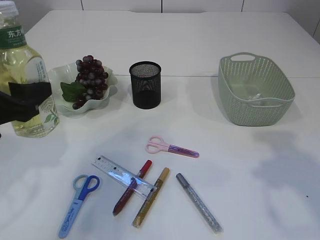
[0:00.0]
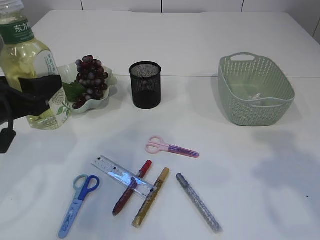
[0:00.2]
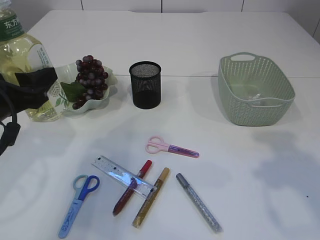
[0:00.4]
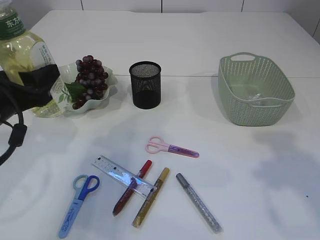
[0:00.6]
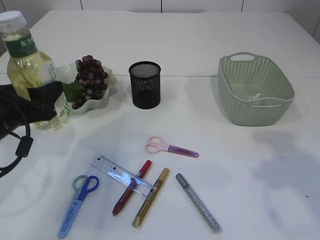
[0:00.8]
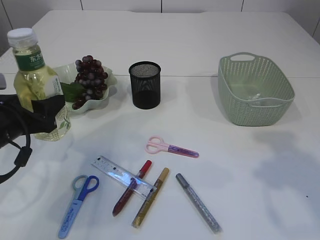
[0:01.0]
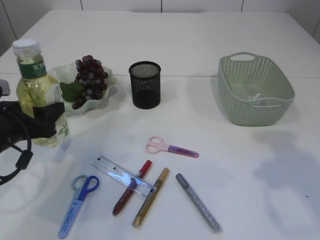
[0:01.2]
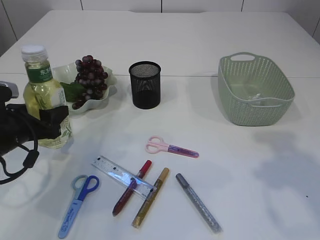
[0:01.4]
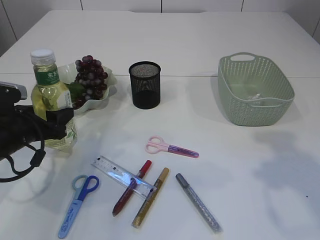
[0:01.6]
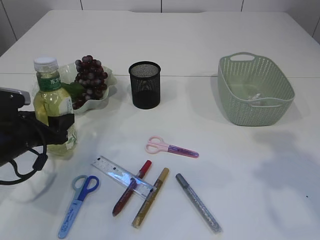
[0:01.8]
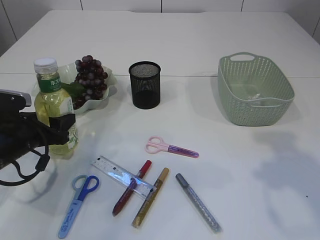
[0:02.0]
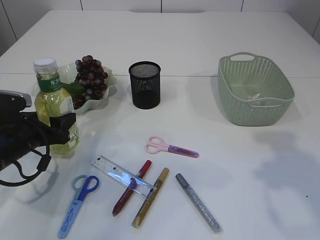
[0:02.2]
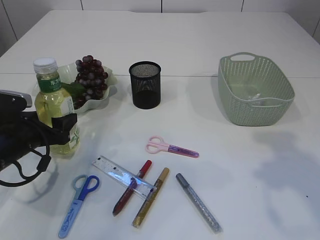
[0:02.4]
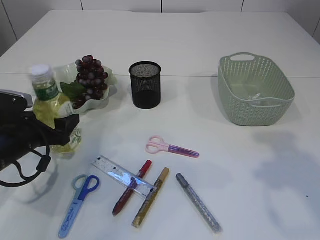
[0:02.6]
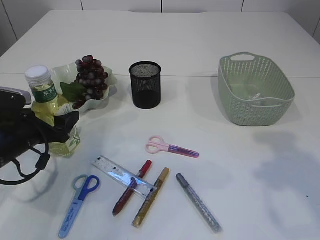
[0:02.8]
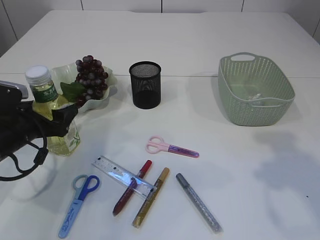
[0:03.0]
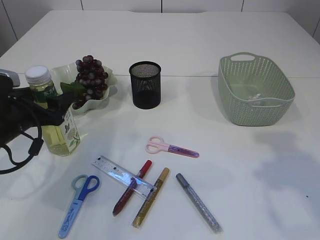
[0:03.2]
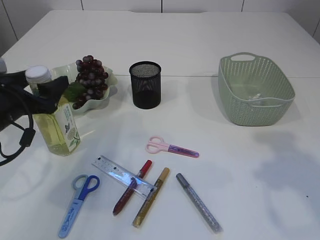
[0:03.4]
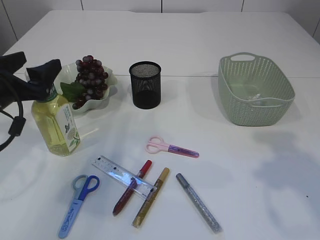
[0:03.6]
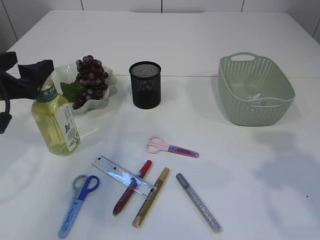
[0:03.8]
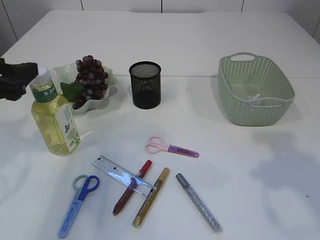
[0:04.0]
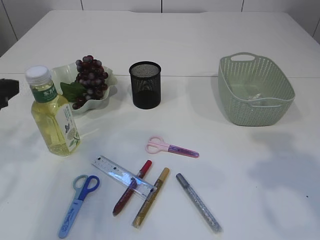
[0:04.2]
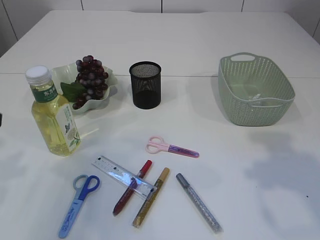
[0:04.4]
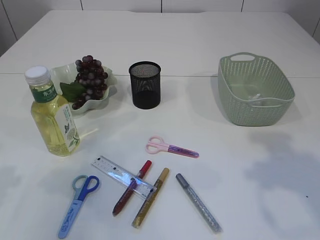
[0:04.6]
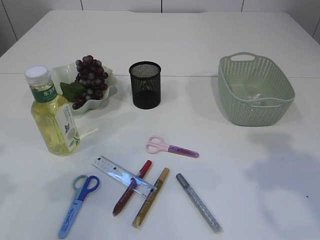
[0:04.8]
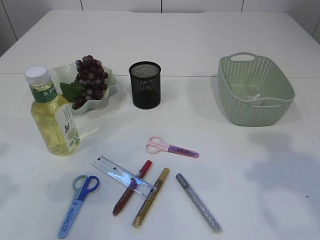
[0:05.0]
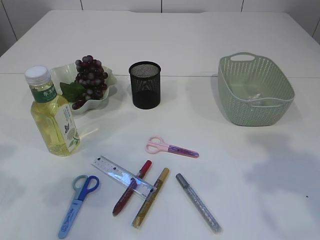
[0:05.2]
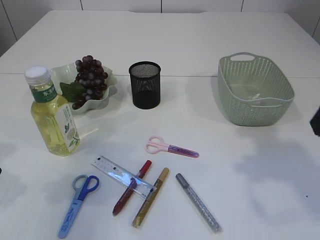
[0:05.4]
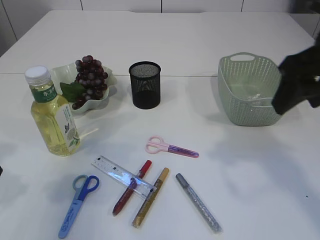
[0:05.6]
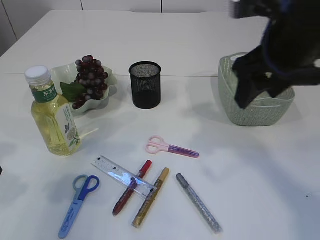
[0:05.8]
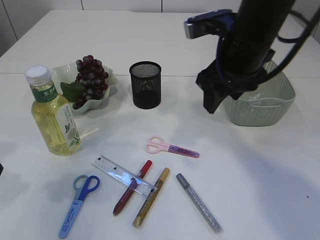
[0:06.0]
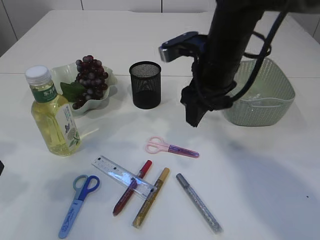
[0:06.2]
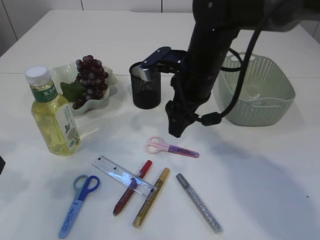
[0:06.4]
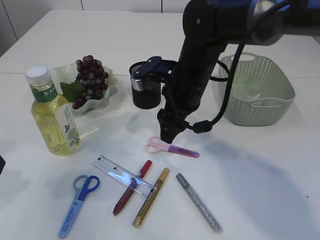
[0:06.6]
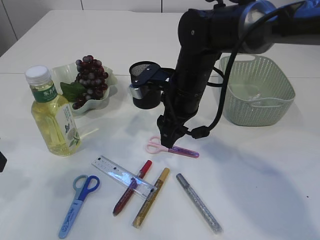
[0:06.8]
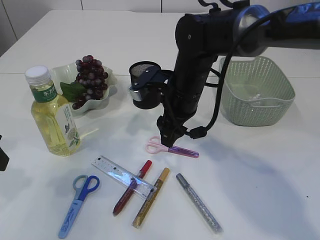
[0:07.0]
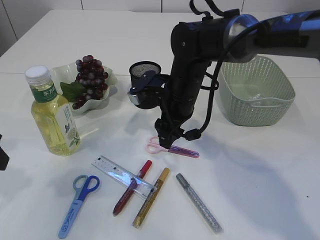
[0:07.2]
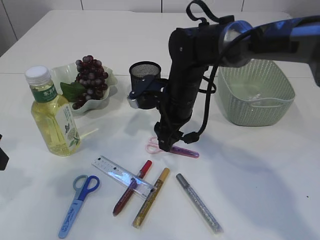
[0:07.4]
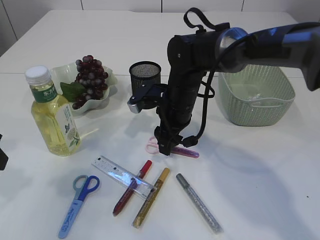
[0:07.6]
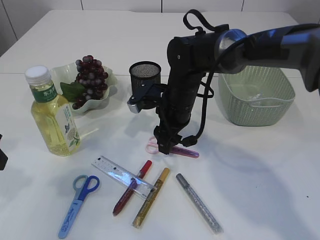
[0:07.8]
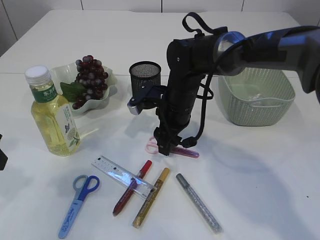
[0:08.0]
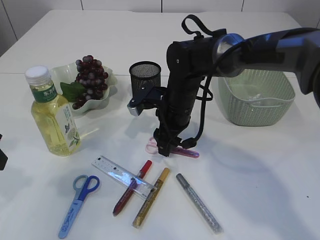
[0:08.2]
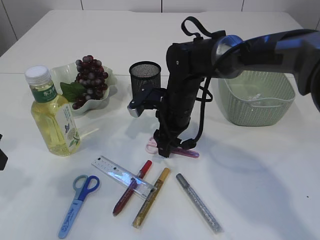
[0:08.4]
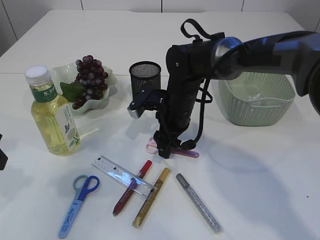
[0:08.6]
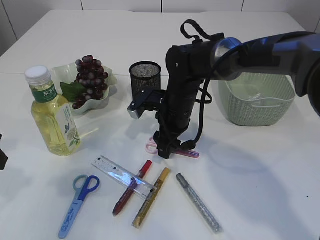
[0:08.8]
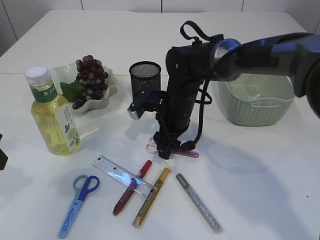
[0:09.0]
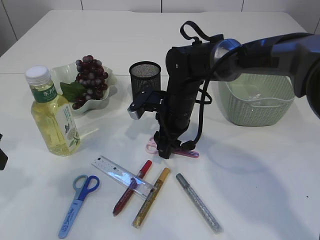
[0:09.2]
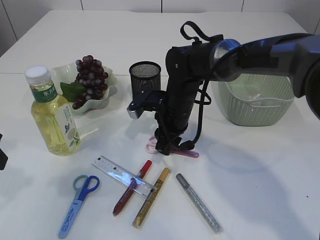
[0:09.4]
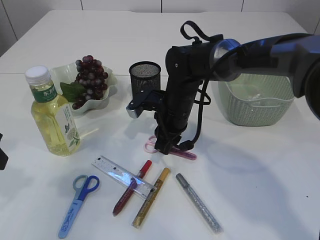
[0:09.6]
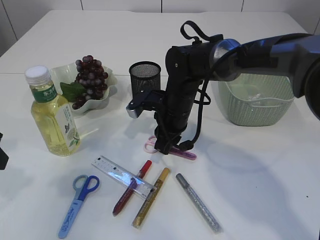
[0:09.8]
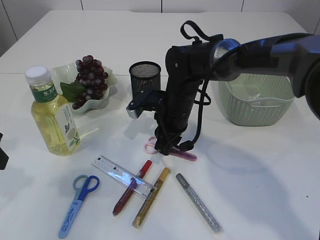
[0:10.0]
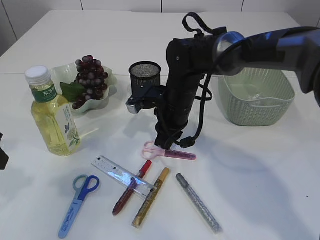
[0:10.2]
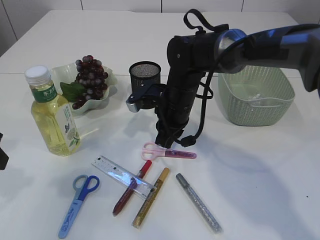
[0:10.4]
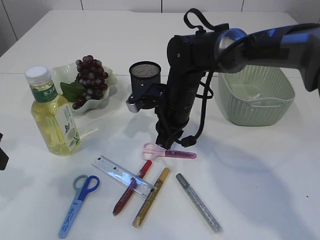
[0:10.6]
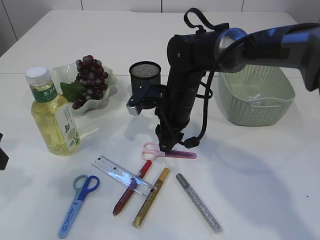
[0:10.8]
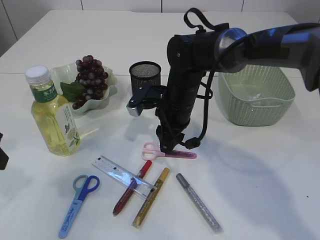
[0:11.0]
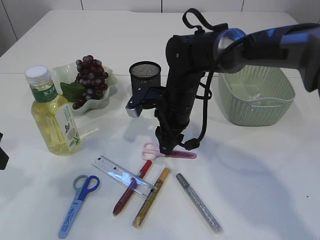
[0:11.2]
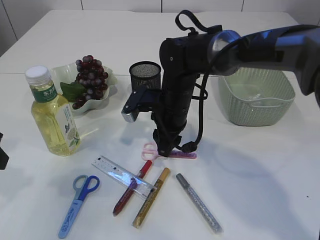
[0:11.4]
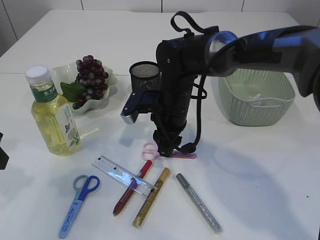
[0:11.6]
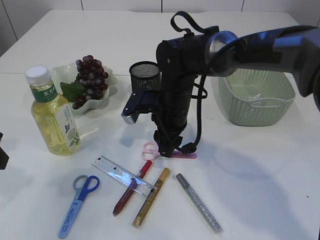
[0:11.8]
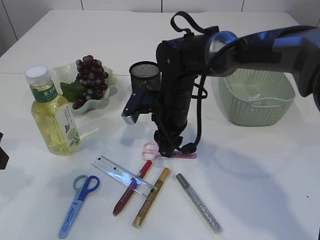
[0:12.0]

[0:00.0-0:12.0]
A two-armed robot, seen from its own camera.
Step, 0:00.0 to 0:03.8: Place the bottle.
0:00.0 to 0:01.6: The left gripper travels downward and forward by about 15 cm.
0:01.6 to 0:03.0: The left gripper opens its fingers.
0:03.0 to 0:04.4: The left gripper travels upward and backward by roughly 15 cm.
0:04.4 to 0:06.0: The right gripper heads forward and to the left, covering approximately 20 cm.
0:06.0 to 0:07.6: The right gripper travels downward, to the left and forward by approximately 20 cm.
0:07.6 to 0:09.0: There are only small adjustments of the grippers.
0:09.0 to 0:10.4: The right gripper closes its fingers.
0:10.4 to 0:12.0: The right gripper opens.

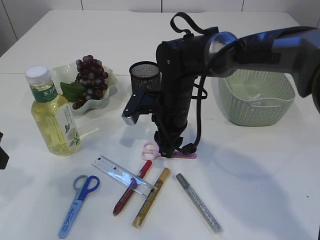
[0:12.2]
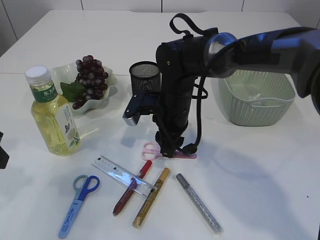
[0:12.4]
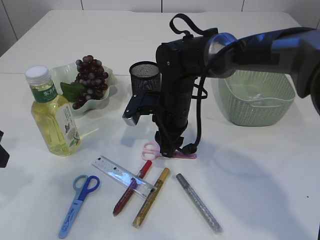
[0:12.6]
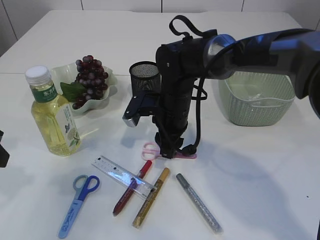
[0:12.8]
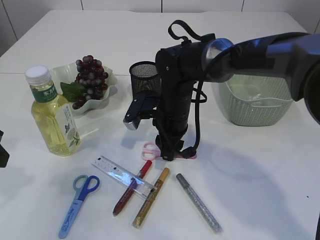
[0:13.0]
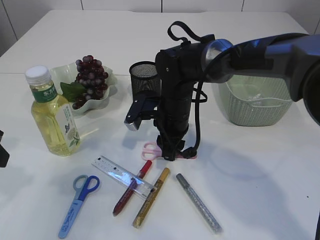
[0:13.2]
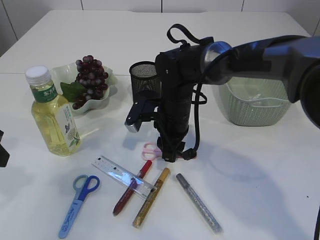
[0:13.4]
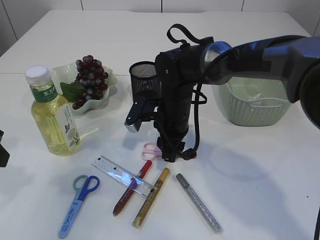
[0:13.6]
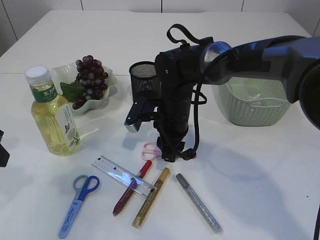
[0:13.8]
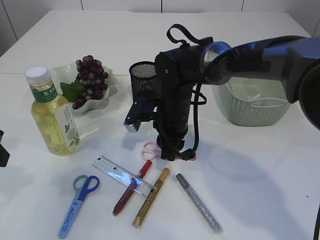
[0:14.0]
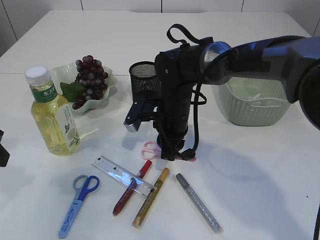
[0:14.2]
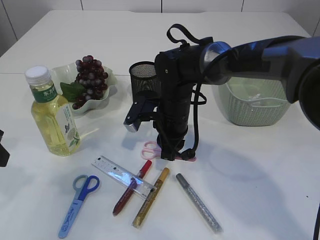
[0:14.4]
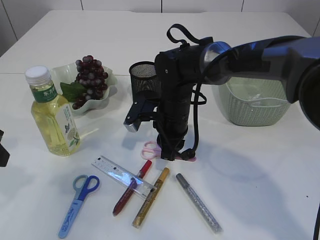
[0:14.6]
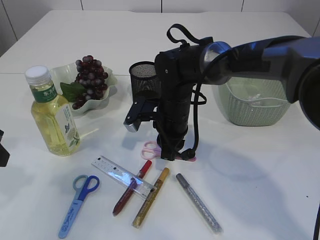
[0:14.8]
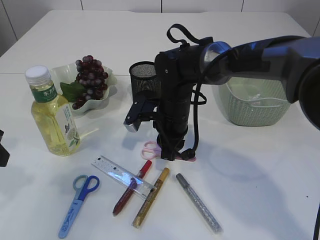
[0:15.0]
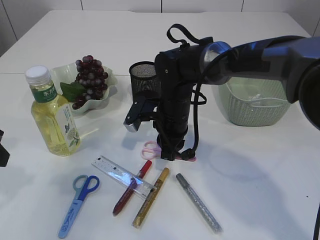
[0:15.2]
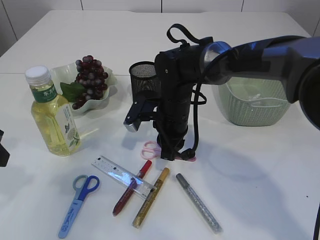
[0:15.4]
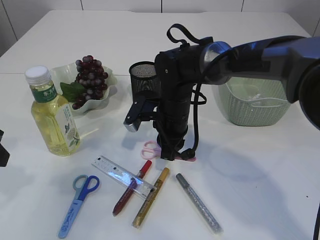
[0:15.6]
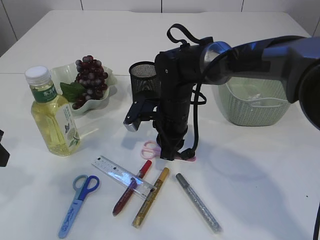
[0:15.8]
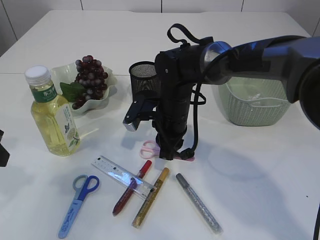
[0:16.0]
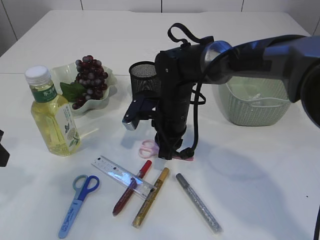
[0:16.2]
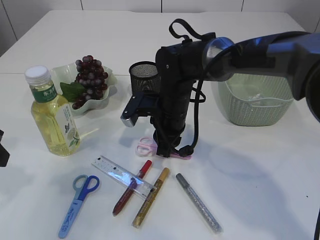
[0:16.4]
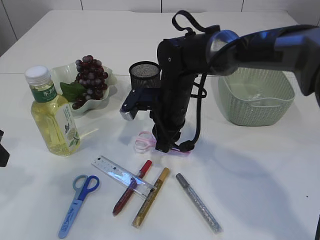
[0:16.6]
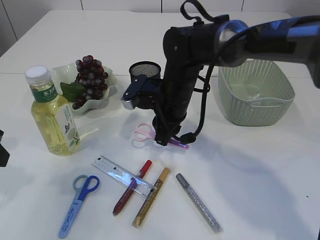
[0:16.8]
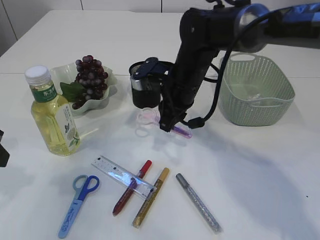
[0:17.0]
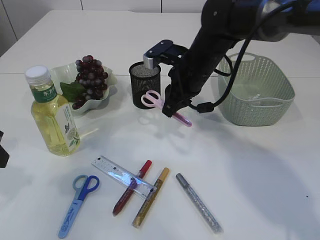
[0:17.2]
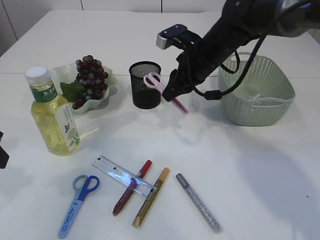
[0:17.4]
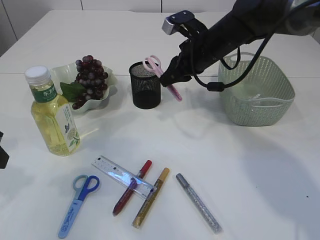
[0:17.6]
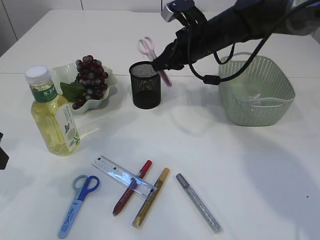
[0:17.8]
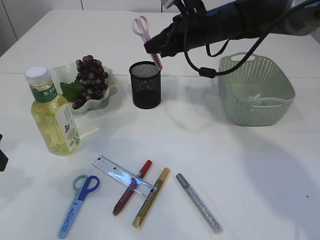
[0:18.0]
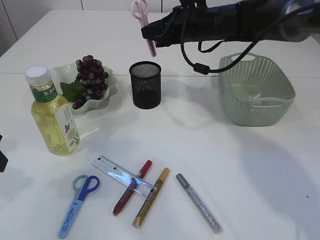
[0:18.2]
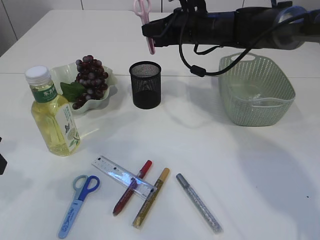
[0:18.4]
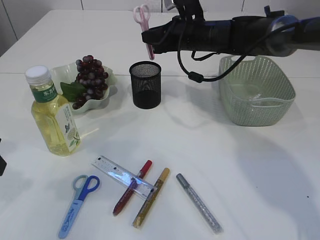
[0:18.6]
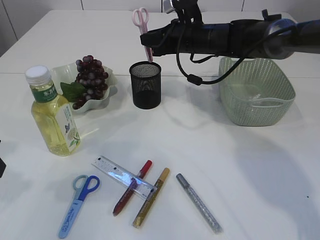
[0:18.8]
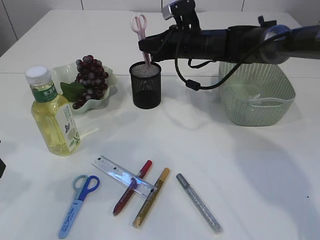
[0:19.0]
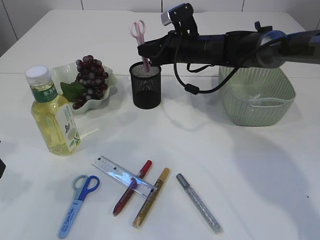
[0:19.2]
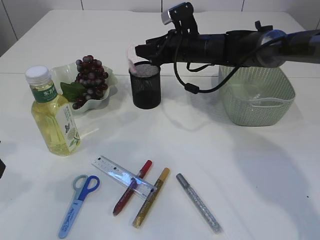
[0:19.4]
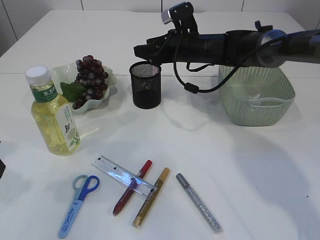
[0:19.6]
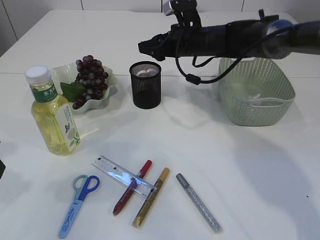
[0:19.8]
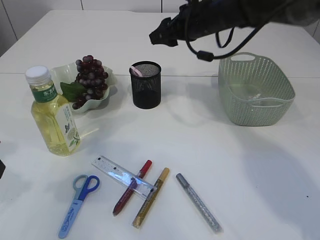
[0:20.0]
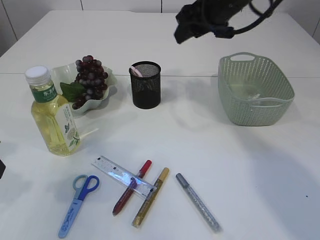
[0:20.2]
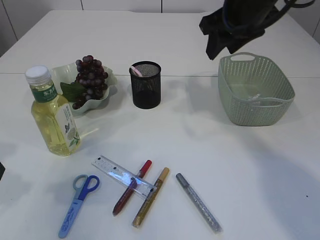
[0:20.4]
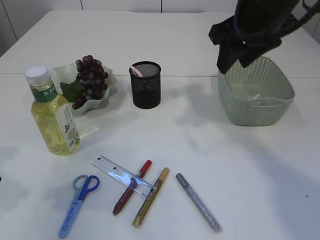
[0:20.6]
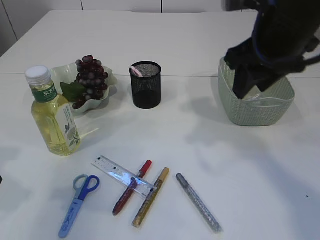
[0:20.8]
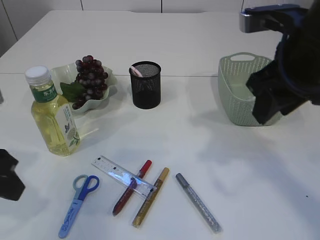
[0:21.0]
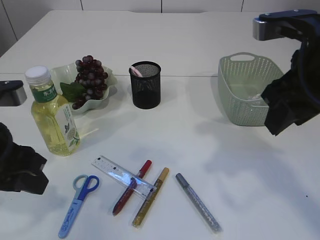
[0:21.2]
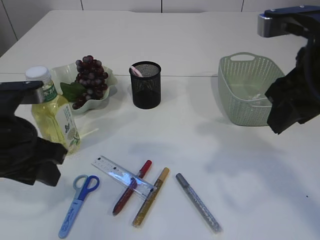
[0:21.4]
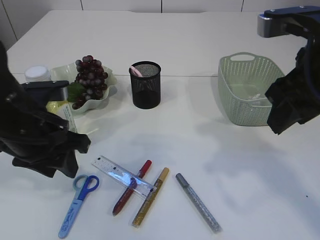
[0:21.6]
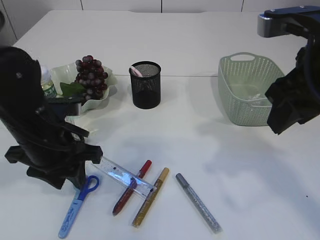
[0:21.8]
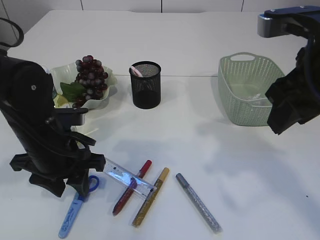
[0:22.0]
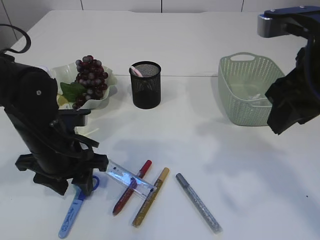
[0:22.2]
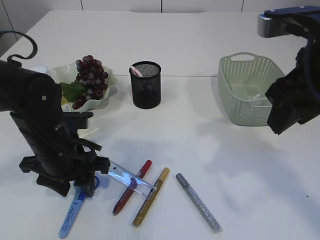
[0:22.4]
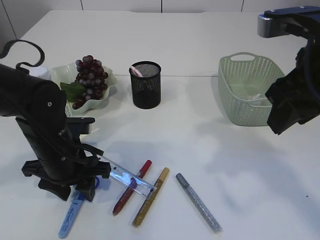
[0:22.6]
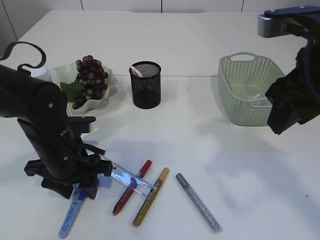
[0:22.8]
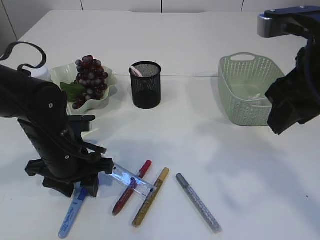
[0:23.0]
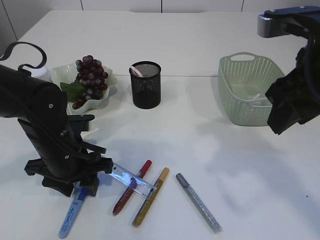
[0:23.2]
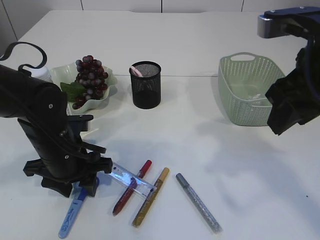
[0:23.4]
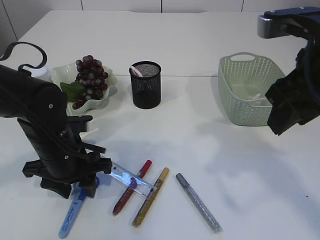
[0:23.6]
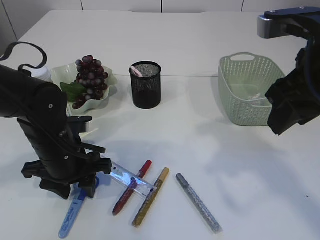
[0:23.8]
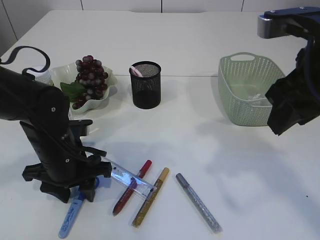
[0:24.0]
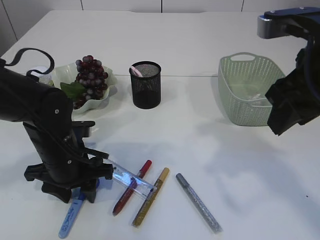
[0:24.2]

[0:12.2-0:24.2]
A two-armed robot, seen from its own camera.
Step, 0:12.2 to 0:17.2: pick up the pink scissors.
Step, 0:17.4 to 0:19.8: Place the pink scissors into the pen holder.
0:12.2 to 0:13.8: There are only small adjustments of the grippers.
0:13.8 to 0:15.2: Neither gripper changes place.
0:15.2 to 0:16.6: The grippers stay close to where they were, moving slightly.
0:16.6 to 0:18.2: The right gripper shifts some 15 cm upward, forward and to the right.
0:18.2 to 0:19.8: The right gripper opens up.
0:19.8 to 0:21.2: The right gripper heads backward and upward, covering roughly 25 cm. Meanwhile the left gripper heads to the right, covering some 5 cm.
0:21.2 to 0:22.6: The left gripper moves downward, forward and to the right, approximately 15 cm.
0:22.6 to 0:24.2: The grippers stay close to where they were, moving slightly.
